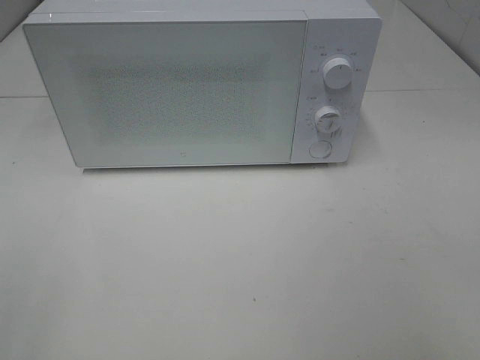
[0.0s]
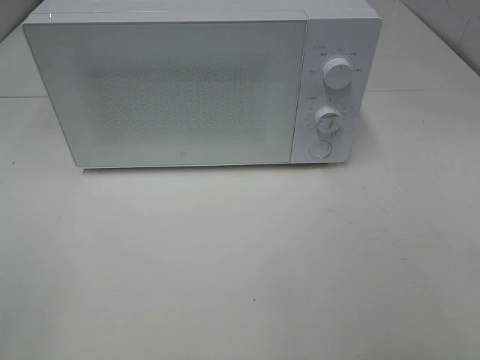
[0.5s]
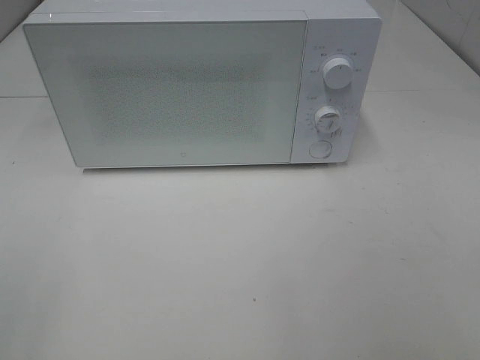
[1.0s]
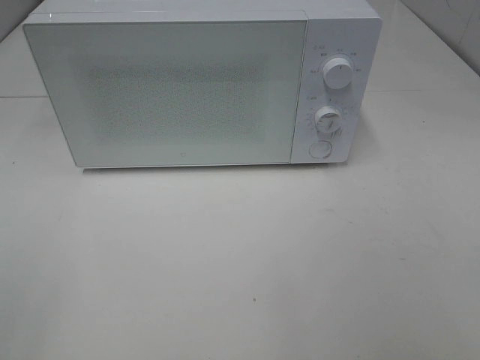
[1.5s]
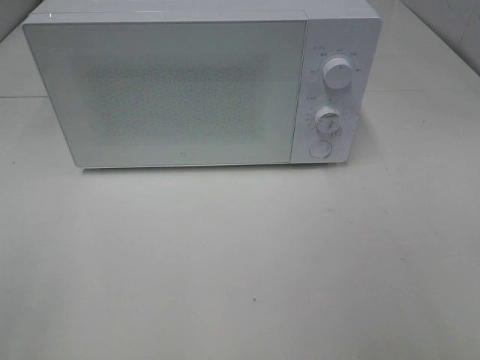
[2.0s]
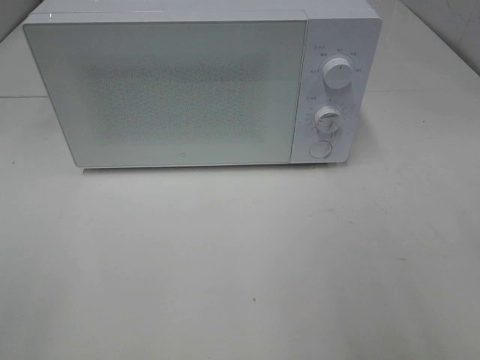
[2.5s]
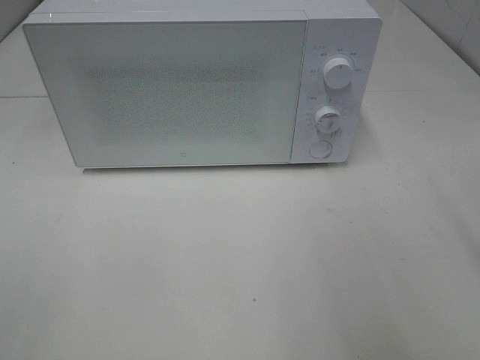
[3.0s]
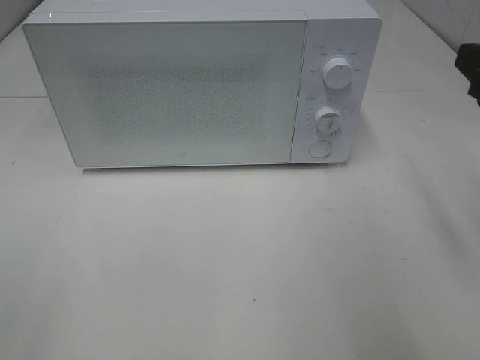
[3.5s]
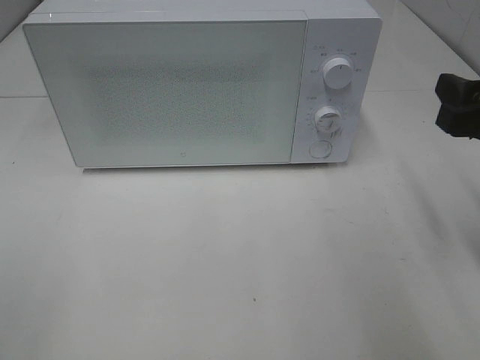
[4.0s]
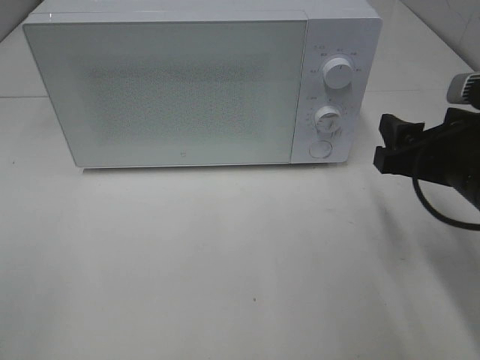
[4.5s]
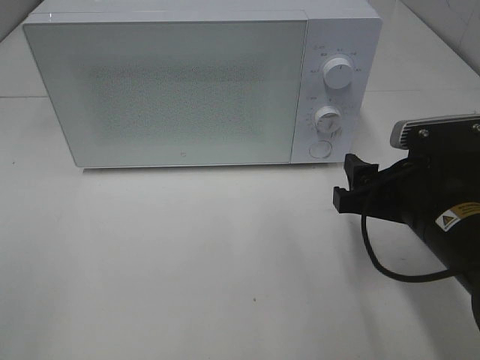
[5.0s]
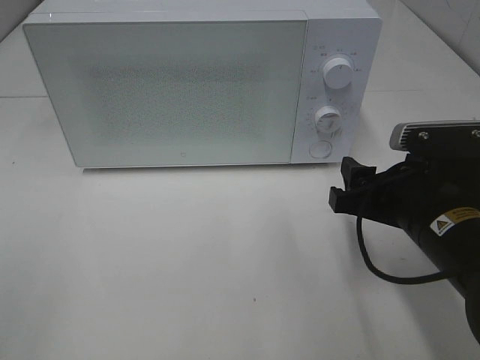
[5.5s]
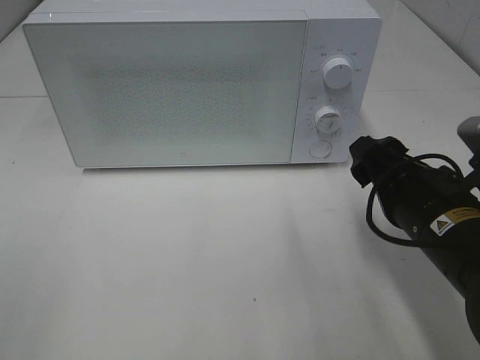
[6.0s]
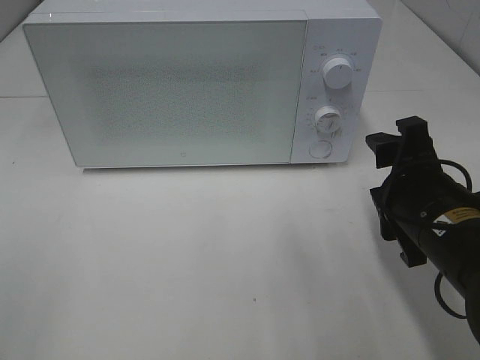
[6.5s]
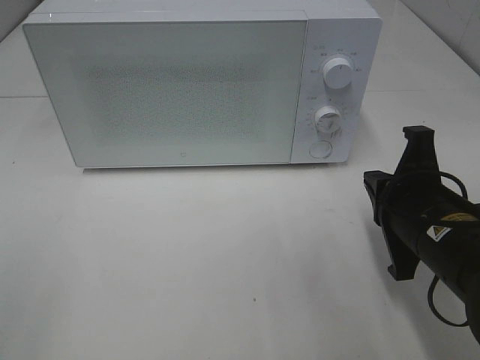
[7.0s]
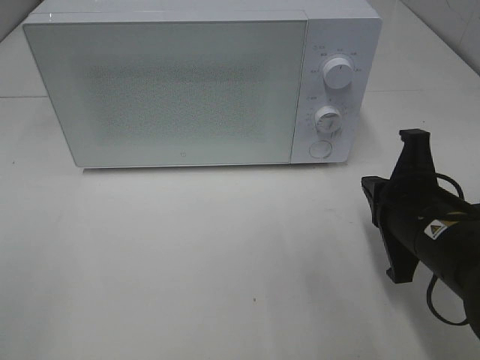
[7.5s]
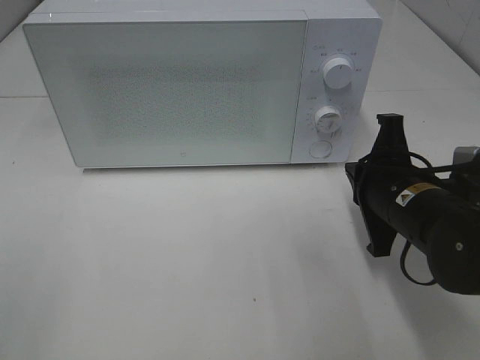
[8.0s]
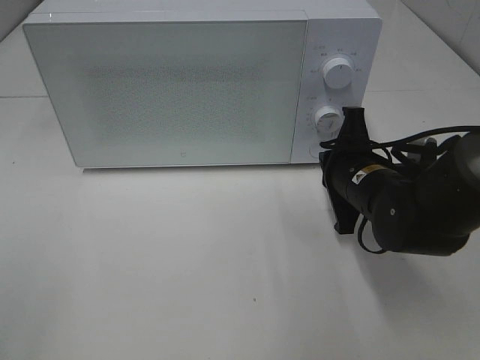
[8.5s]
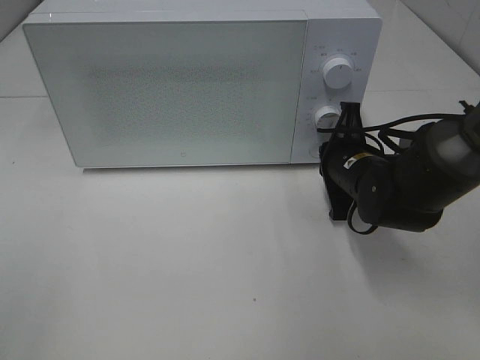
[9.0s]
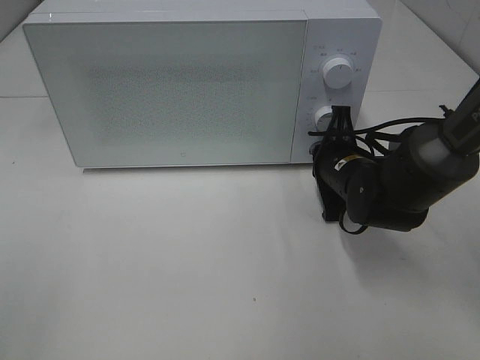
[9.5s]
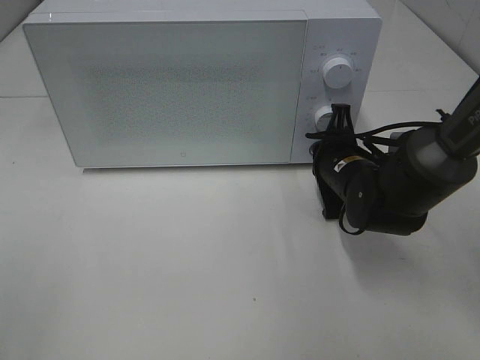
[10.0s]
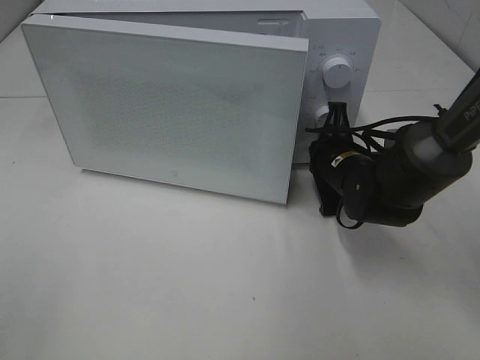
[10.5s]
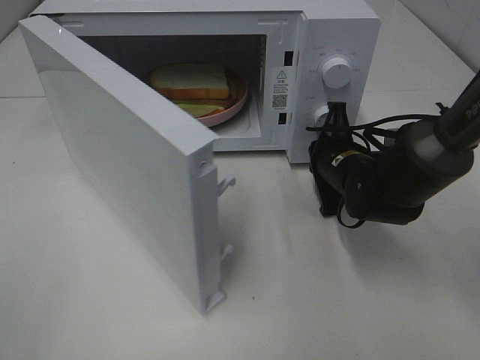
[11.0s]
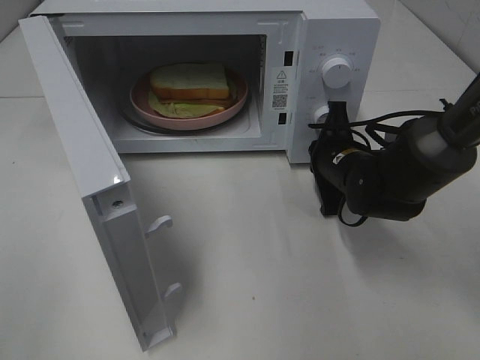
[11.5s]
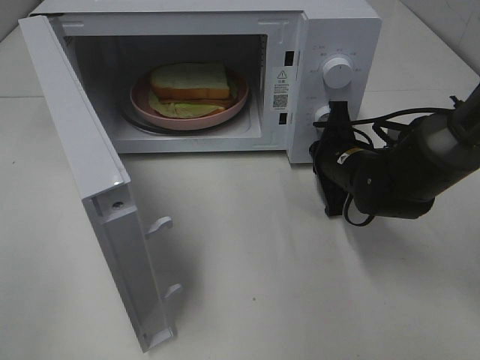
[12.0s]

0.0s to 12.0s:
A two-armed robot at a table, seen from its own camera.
Task of the whole recording: Heat Sandwich.
2.0s to 4.0s: The right gripper travels forward and downward by roughly 20 cm.
4.0s to 6.0s: The right gripper goes approximately 10 cm to the left and downward.
6.0s to 8.0s: The right gripper closes up.
8.0s to 10.0s: The right gripper goes some 10 cm forward.

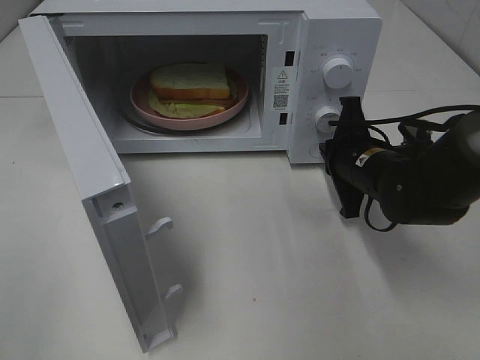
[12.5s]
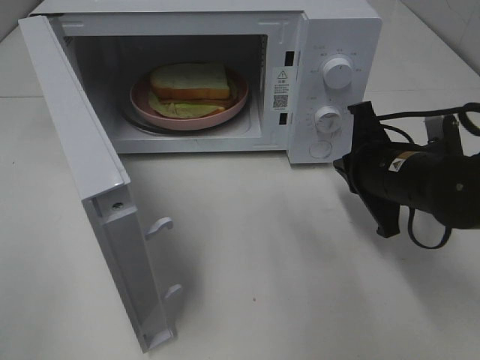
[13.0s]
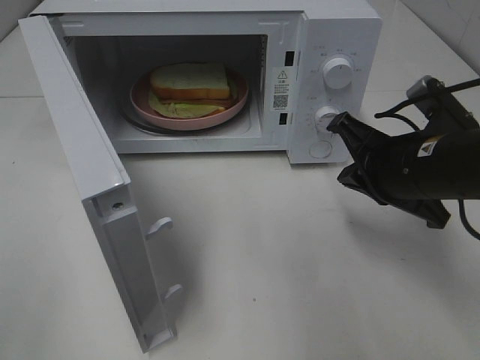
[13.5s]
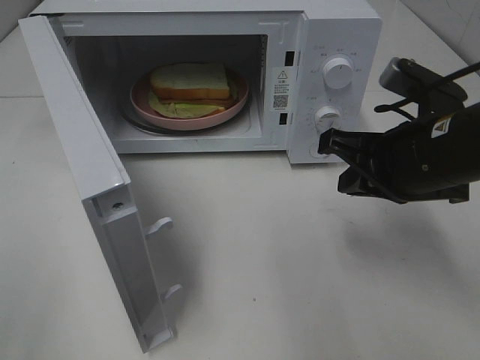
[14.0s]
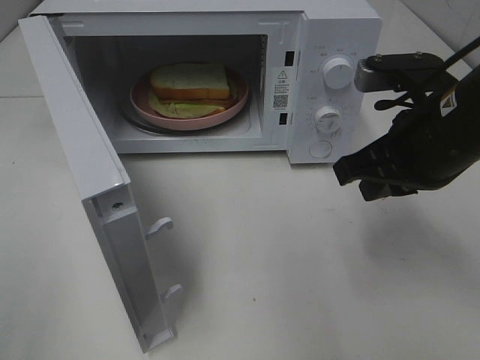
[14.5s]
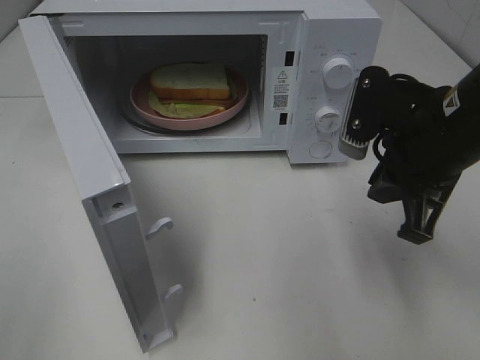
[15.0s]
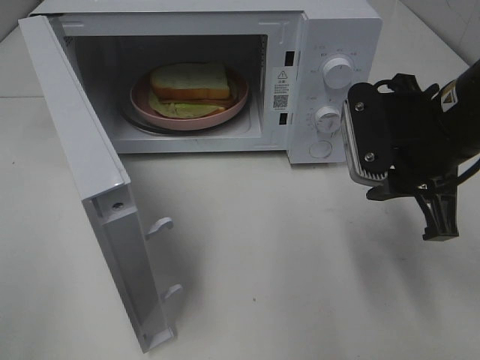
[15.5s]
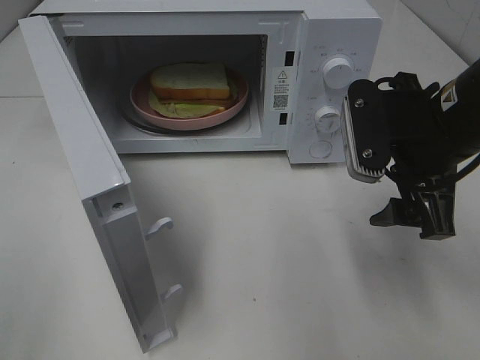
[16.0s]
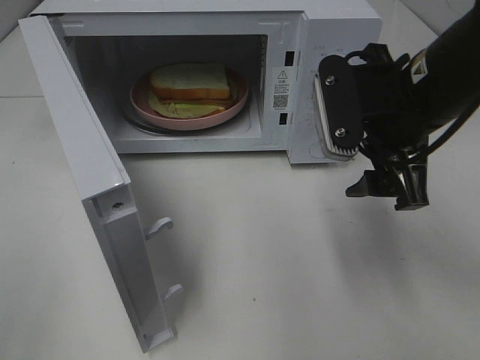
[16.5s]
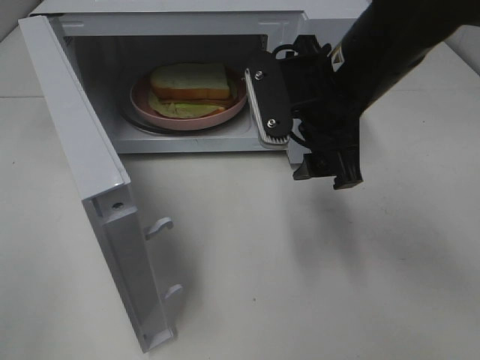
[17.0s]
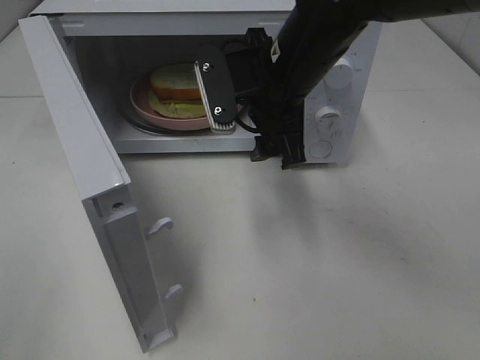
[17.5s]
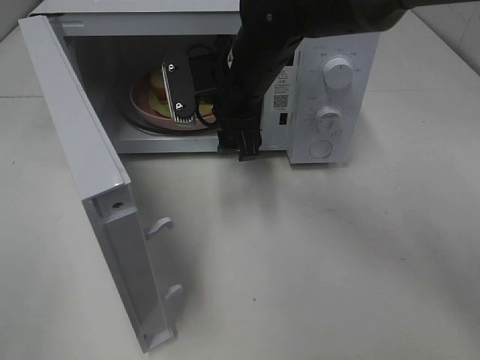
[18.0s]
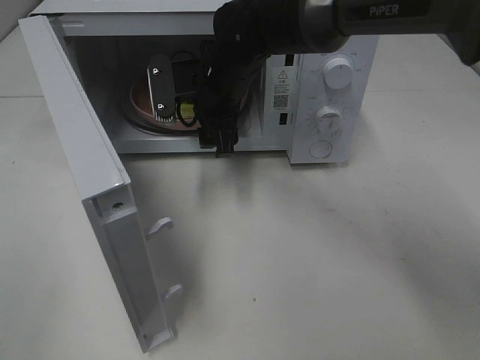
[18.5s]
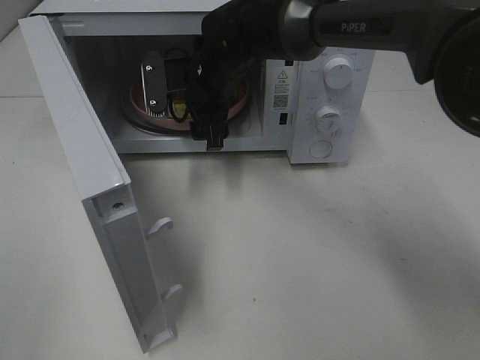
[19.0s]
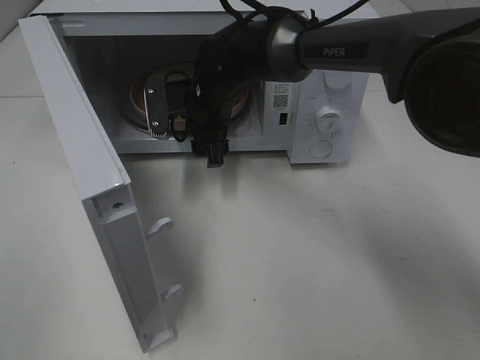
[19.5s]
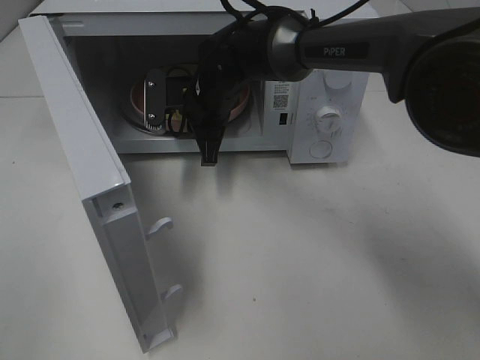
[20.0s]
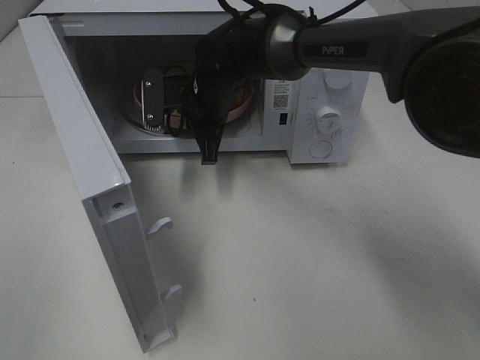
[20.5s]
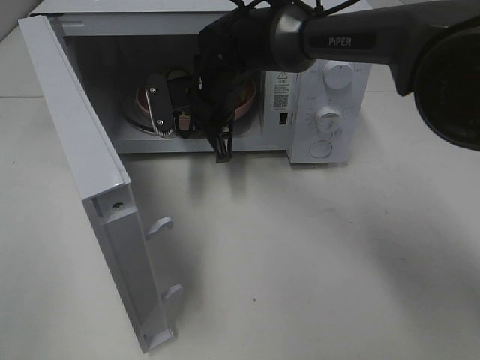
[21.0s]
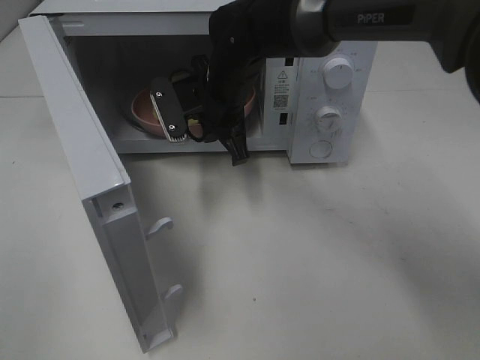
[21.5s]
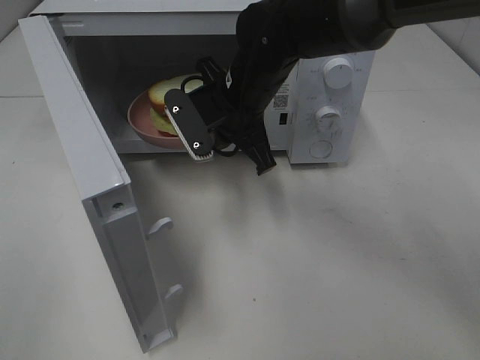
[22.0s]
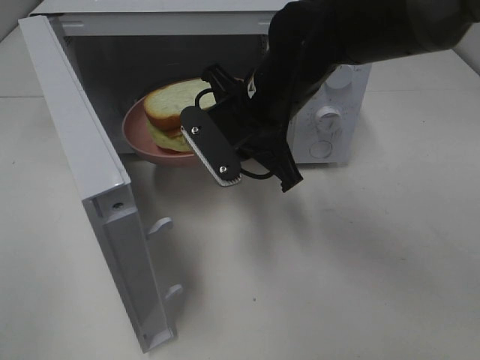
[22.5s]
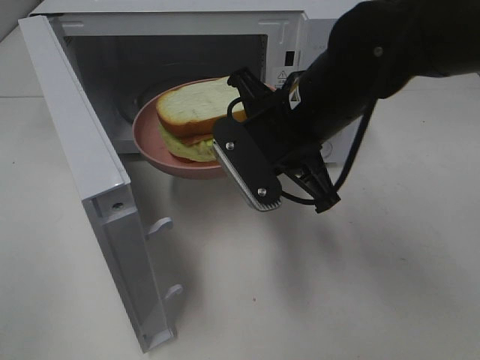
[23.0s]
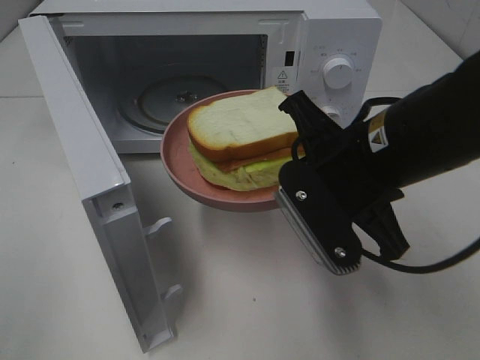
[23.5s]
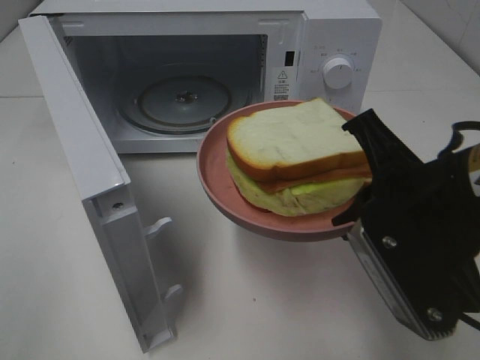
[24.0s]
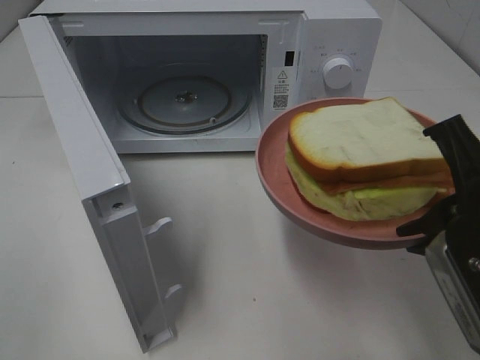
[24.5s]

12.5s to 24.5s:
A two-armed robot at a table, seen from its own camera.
Task of the whole recording: Heat Sandwich.
Step, 13.0s to 20.5s: Right hand: grab the plate with the sandwich.
12.5s to 14.5s: The right gripper heads upward and backward, covering approximately 15 cm.
14.5s to 16.5s: The right gripper opens up.
16.5s to 18.5s: The right gripper goes some 20 cm to the left and forward.
18.5s to 20.5s: The right gripper closes its fingers.
20.5s to 22.5s: The right gripper shifts some 15 cm backward, to the right and upward.
22.5s to 24.5s: The right gripper moves backward and to the right, approximately 25 cm.

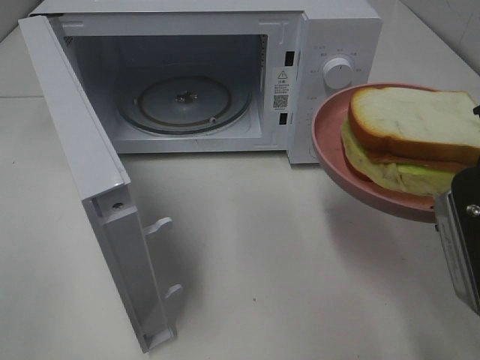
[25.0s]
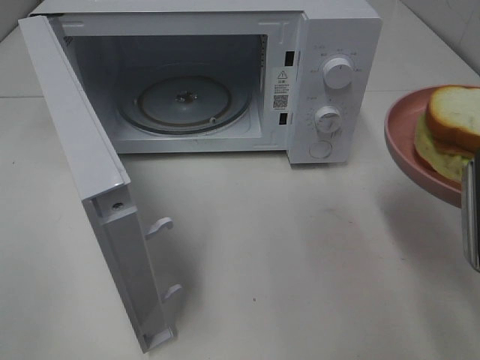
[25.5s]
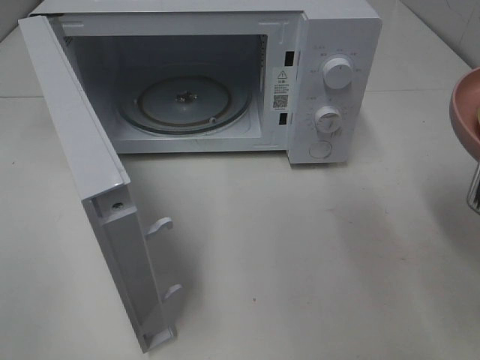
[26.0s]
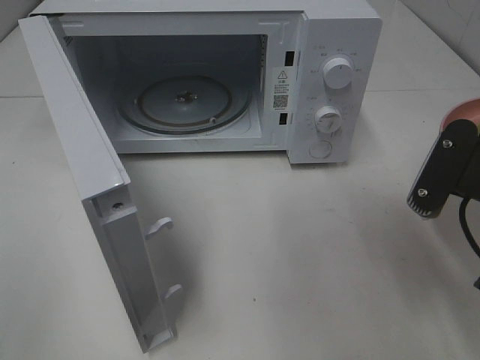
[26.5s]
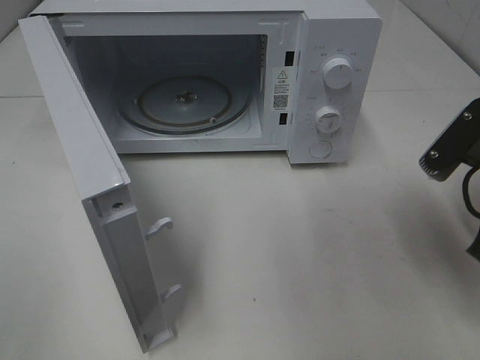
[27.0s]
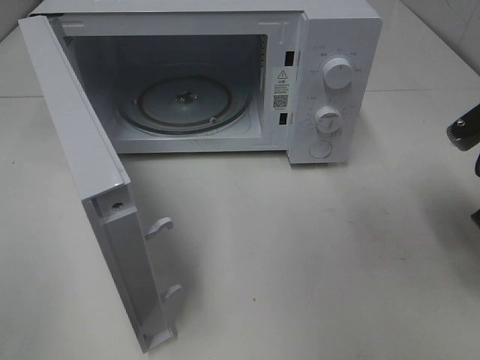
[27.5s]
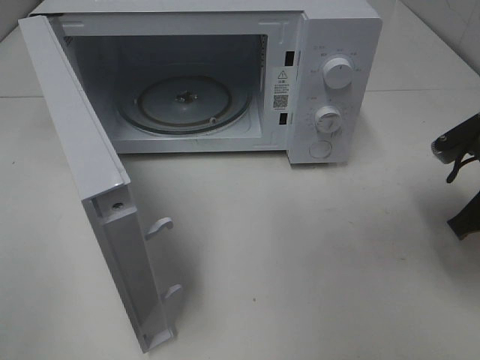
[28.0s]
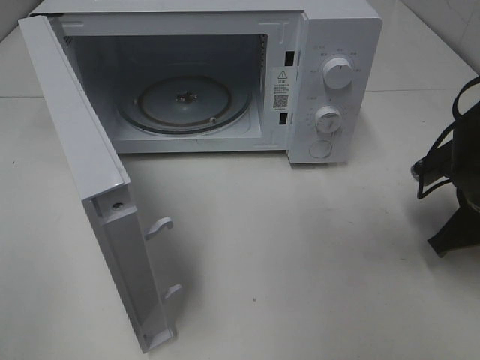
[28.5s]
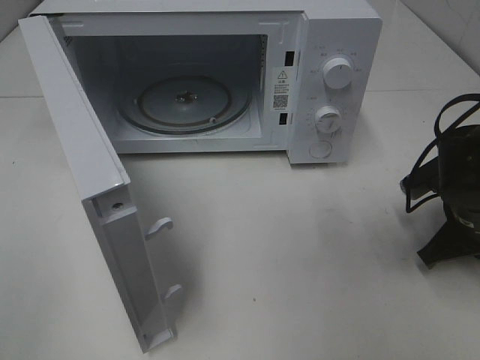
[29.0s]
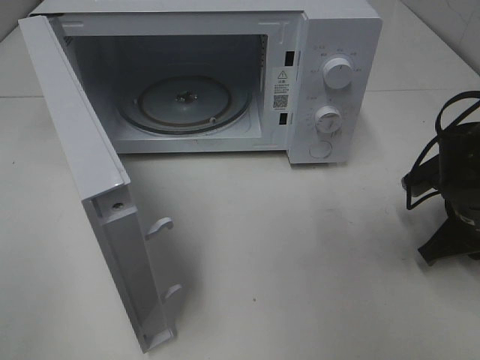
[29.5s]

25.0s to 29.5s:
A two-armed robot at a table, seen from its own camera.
Task of the whole recording: Heat Sandwich.
25.0s to 27.0s: The right gripper goes some 5 cm forward.
27.0s to 29.5s: The right gripper shifts approximately 15 cm downward and forward.
